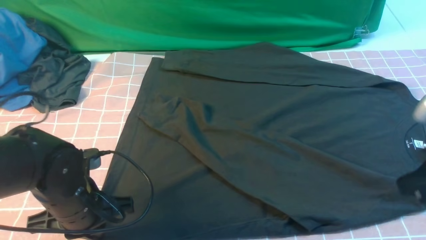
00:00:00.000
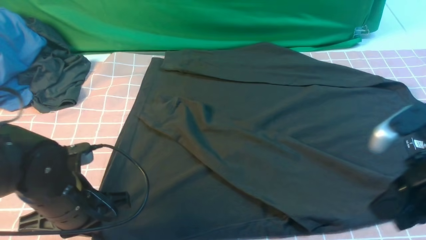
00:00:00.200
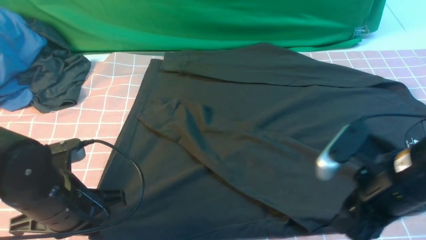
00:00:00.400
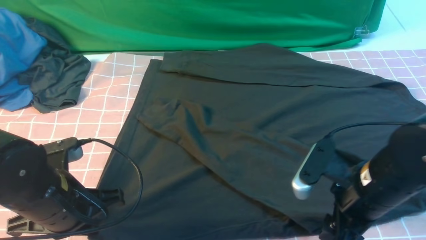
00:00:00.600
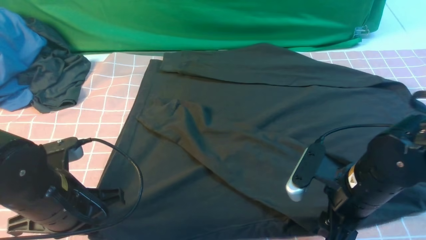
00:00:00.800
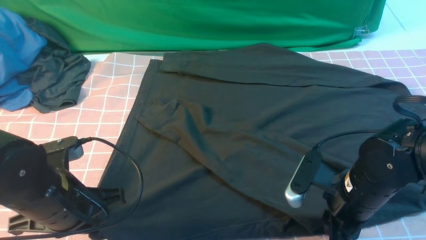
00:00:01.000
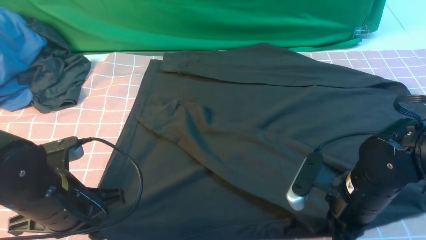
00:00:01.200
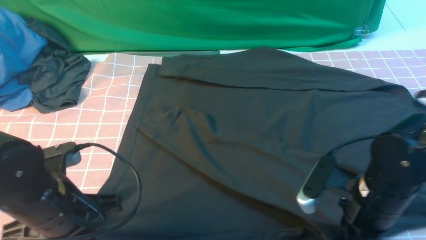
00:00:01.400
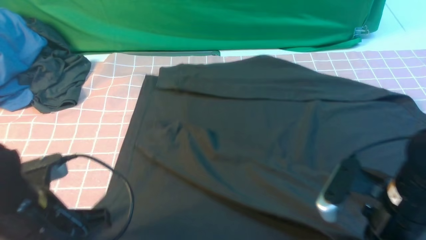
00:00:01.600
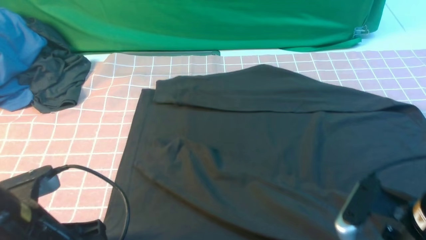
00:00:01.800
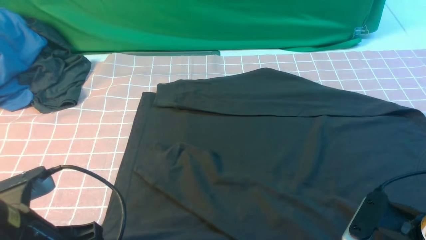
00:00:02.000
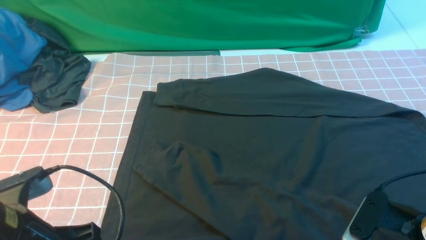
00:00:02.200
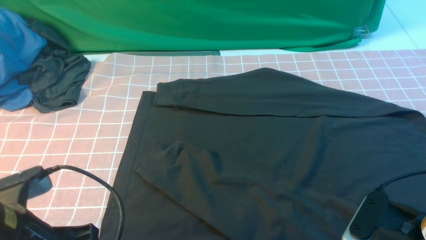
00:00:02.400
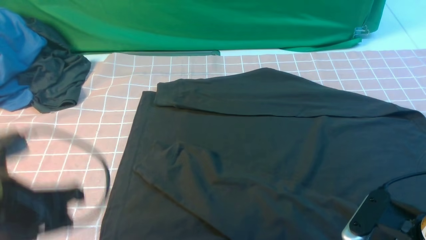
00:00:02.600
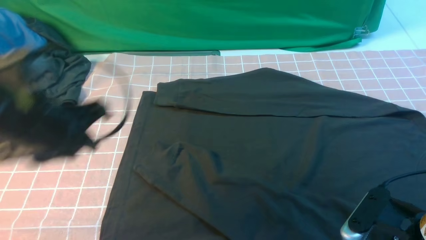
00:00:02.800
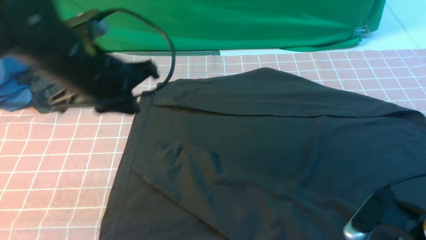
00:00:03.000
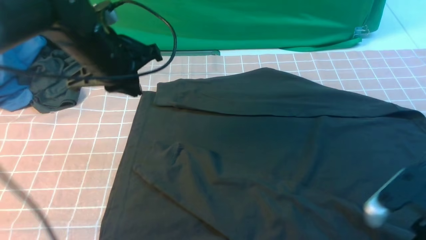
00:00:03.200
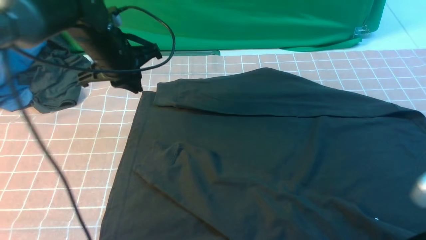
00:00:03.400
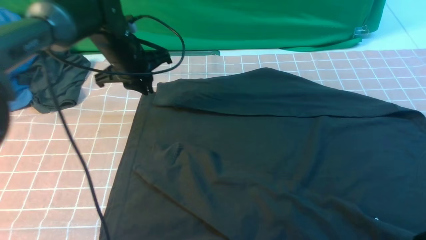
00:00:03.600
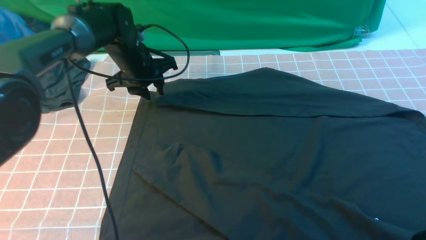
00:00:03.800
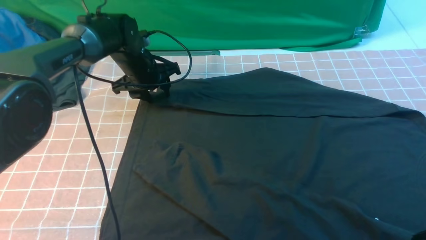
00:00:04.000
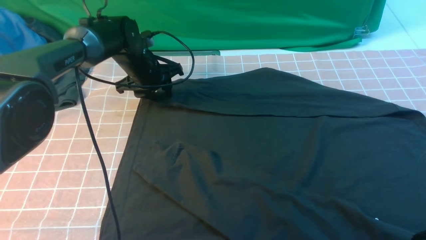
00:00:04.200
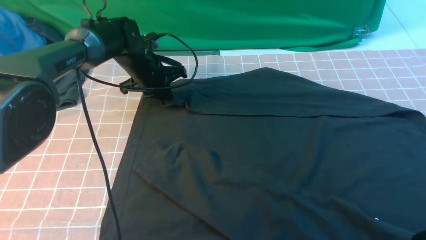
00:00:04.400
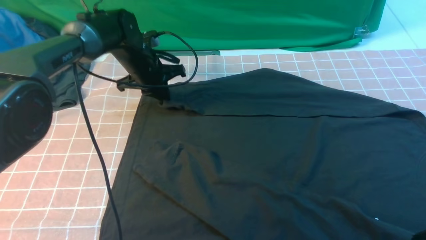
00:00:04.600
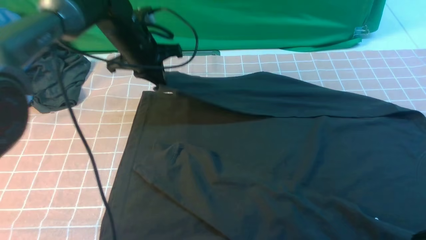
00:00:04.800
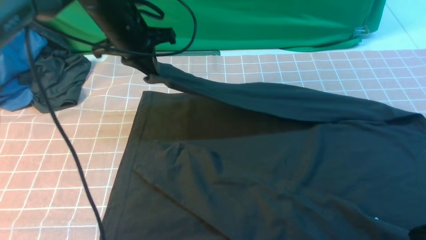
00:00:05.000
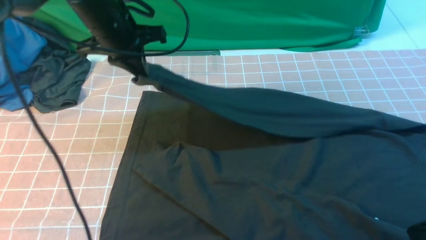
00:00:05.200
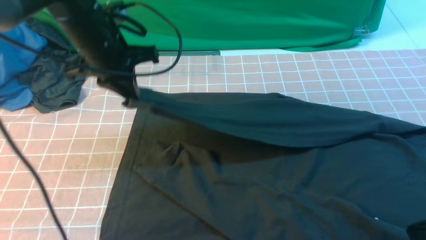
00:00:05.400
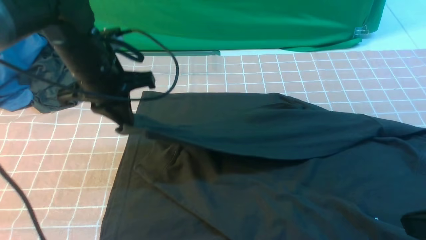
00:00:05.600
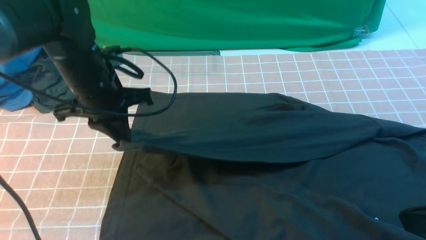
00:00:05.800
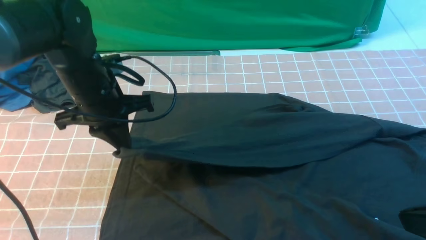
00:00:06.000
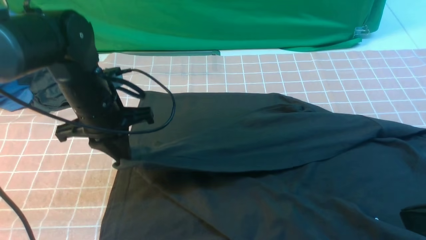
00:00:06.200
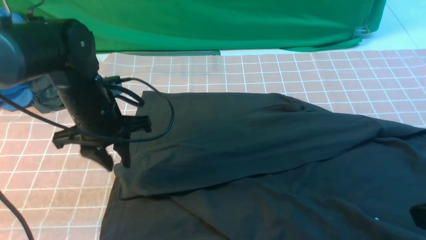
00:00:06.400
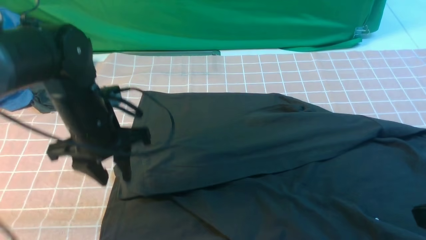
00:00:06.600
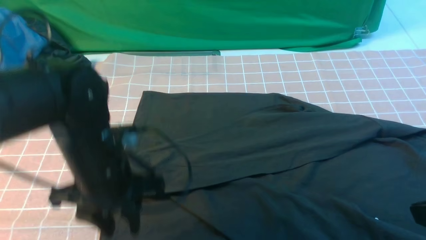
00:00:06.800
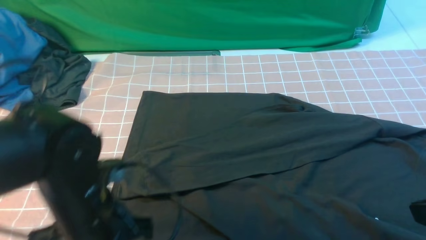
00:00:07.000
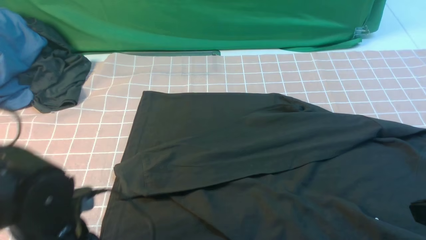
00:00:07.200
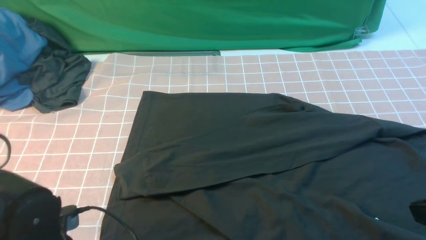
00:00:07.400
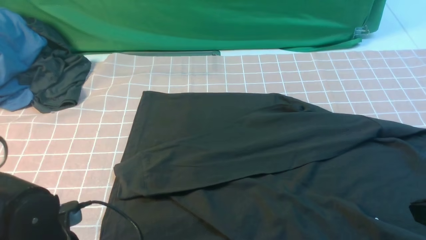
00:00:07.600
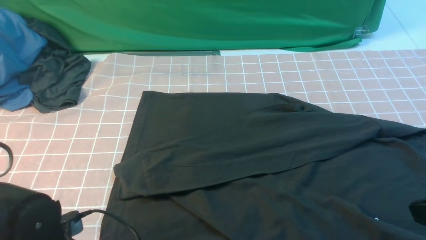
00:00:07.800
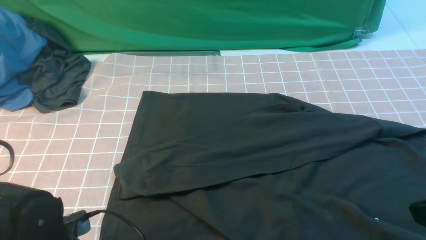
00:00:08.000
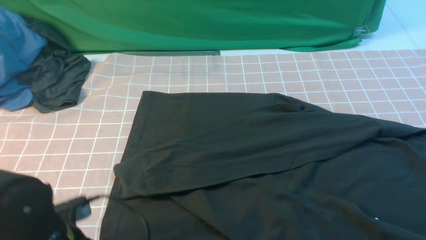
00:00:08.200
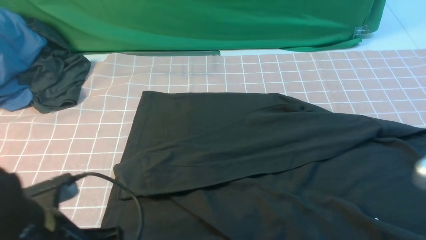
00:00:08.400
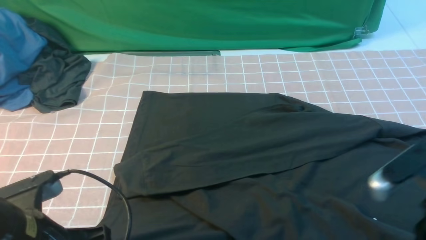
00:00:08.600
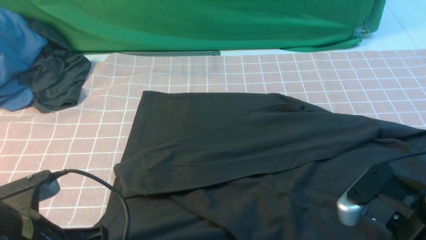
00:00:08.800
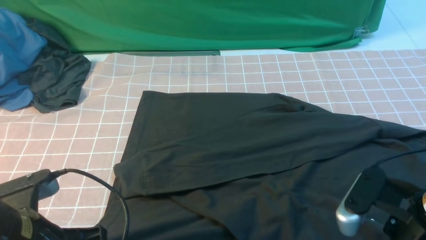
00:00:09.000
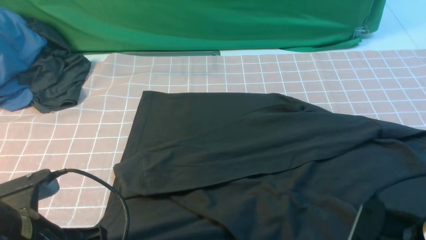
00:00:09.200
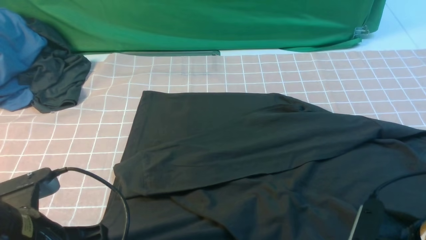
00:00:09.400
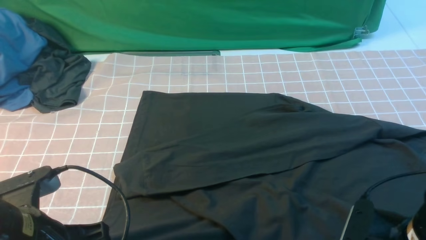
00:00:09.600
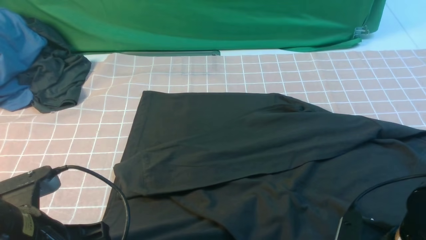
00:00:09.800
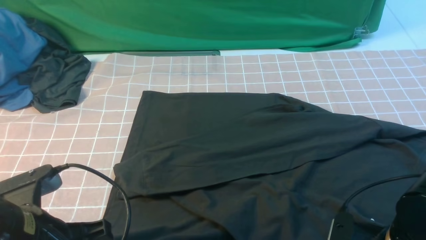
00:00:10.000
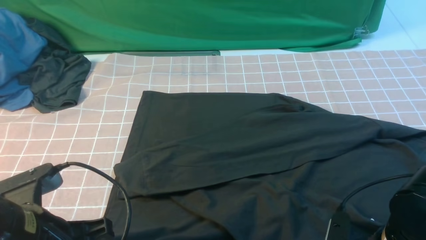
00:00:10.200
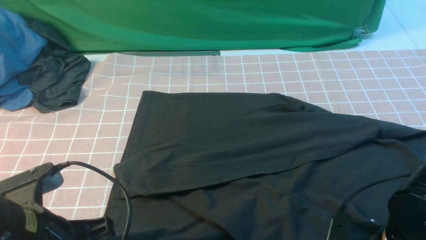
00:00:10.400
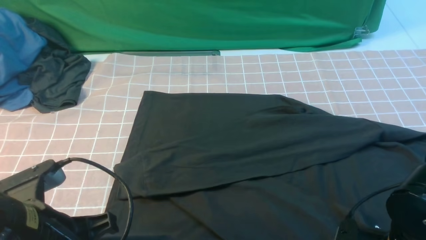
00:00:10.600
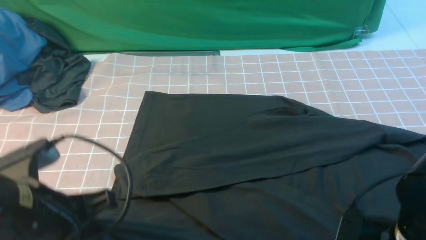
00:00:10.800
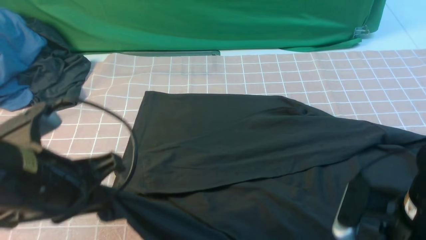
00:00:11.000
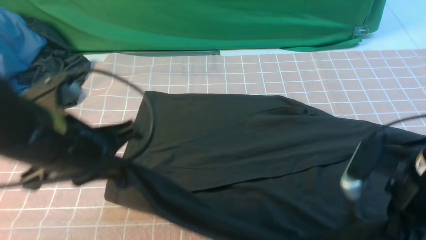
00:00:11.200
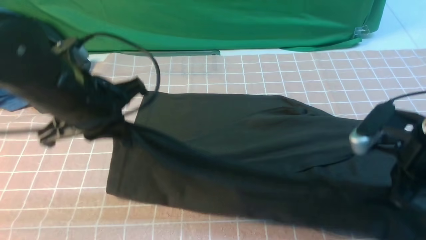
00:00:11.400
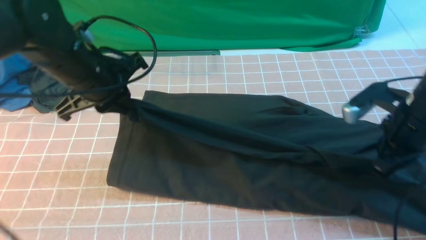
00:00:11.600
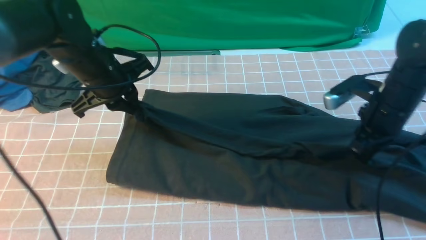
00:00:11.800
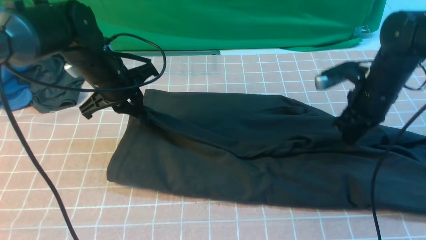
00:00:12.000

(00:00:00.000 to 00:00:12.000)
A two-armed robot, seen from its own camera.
Step, 00:00:00.000 - 00:00:04.400: use the left arm to clamp the cuff farthest from it.
Step, 00:00:04.600 - 00:00:06.200: use the left arm to drag and drop the cuff onto the cuff closest to the left arm.
Step, 00:00:06.600 - 00:00:10.600: use both arms simultaneously to clamp the lower edge of the clothing fabric.
00:00:00.000 - 00:00:01.600: The right gripper heads downward and to the left, covering roughly 10 cm, and opens, then closes once more. The left gripper moves upward and backward, roughly 10 cm.
00:00:01.600 - 00:00:03.000: The left gripper heads forward and upward, covering some 15 cm, and opens, then closes once more, while the right gripper opens its fingers.
00:00:03.000 - 00:00:04.400: The right gripper travels upward by about 10 cm, and closes, while the left gripper goes about 25 cm forward and downward, and opens, then closes again.
00:00:04.400 - 00:00:06.000: The left gripper goes about 15 cm backward and upward.
00:00:06.000 - 00:00:07.600: The left gripper goes roughly 20 cm backward, and opens its fingers.
00:00:07.600 - 00:00:09.000: The right gripper shifts about 5 cm downward, and opens its fingers. The left gripper shifts about 5 cm upward, and closes.
00:00:09.000 - 00:00:10.400: The right gripper shifts approximately 10 cm downward, and opens, then closes once more.
00:00:10.400 - 00:00:12.000: The two grippers go approximately 25 cm forward. The right gripper closes, then reopens.

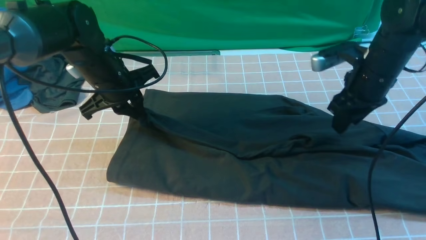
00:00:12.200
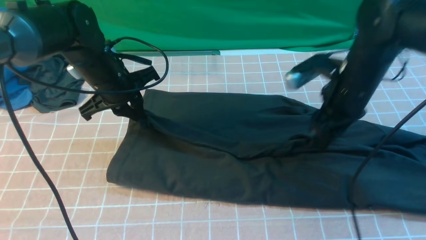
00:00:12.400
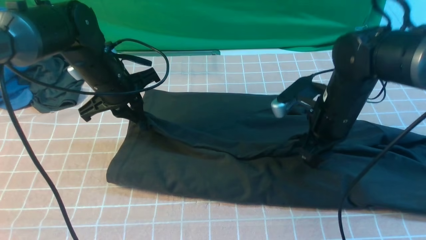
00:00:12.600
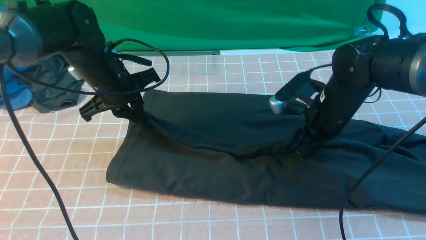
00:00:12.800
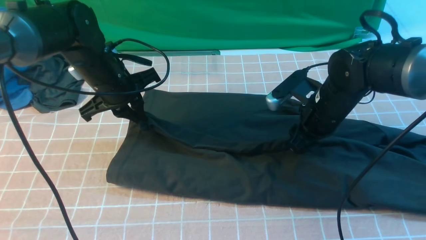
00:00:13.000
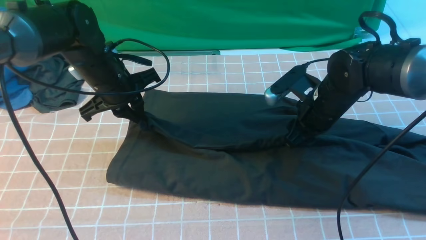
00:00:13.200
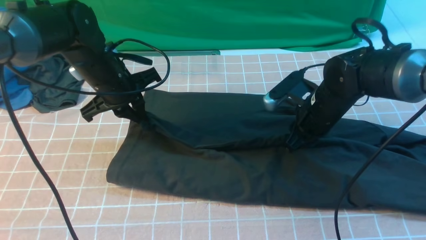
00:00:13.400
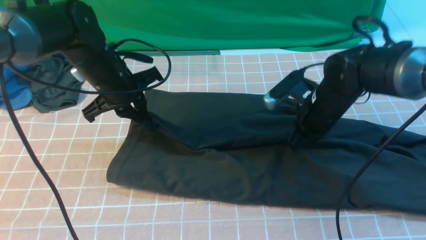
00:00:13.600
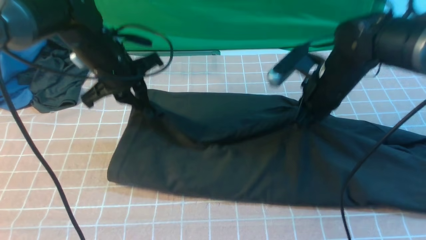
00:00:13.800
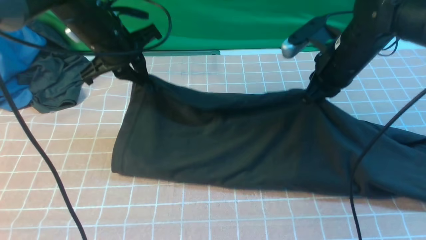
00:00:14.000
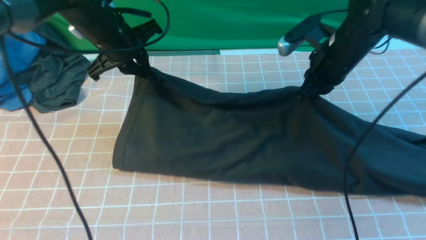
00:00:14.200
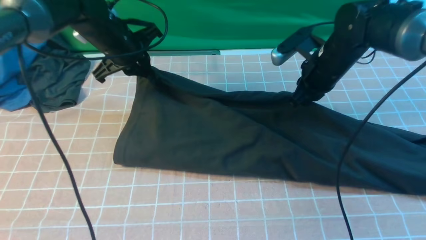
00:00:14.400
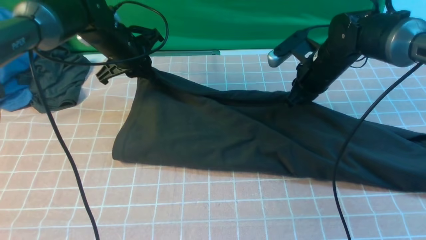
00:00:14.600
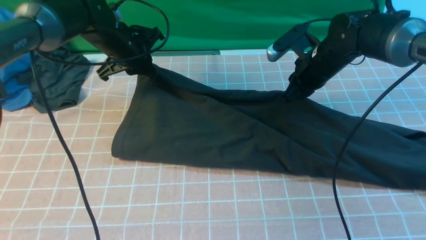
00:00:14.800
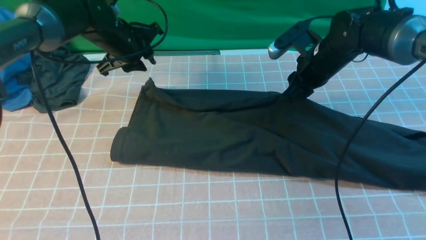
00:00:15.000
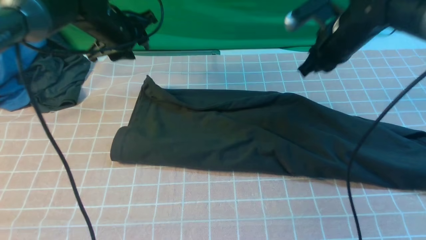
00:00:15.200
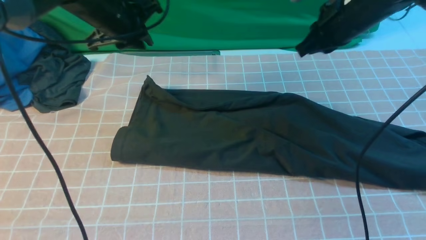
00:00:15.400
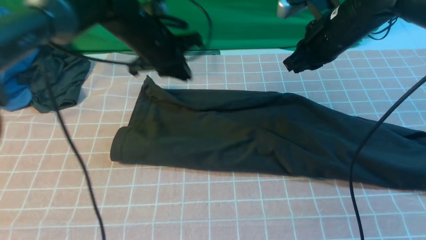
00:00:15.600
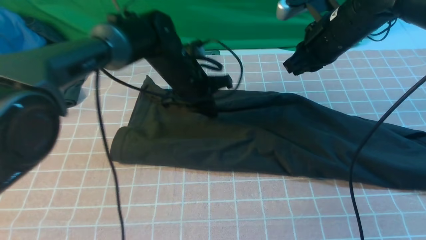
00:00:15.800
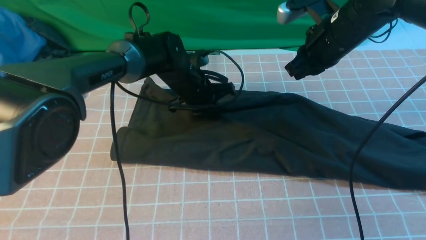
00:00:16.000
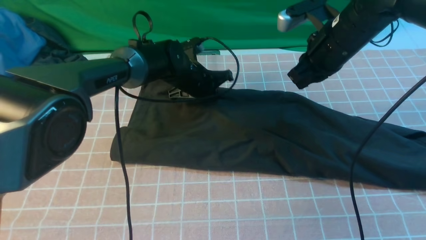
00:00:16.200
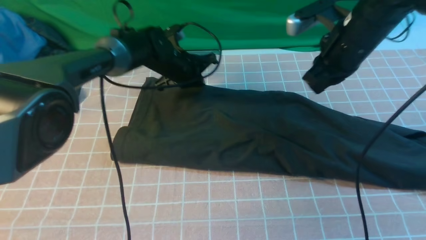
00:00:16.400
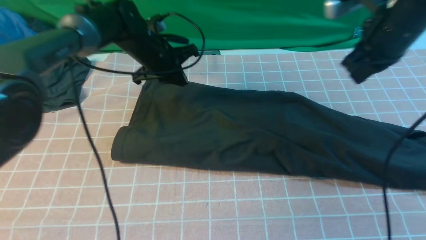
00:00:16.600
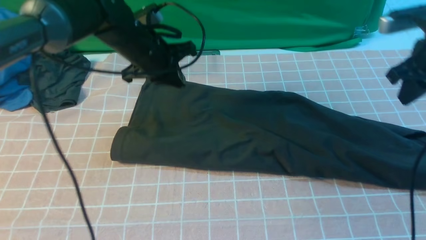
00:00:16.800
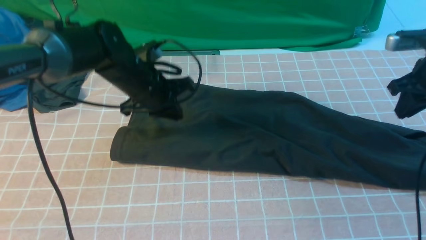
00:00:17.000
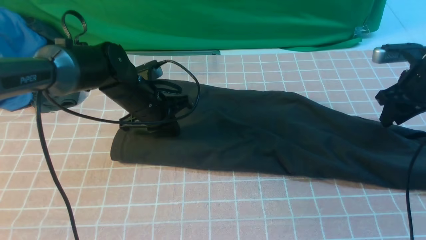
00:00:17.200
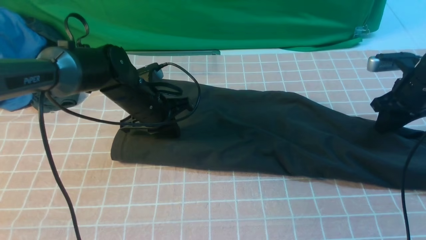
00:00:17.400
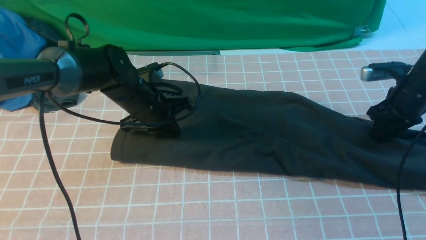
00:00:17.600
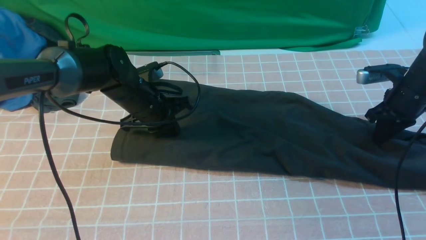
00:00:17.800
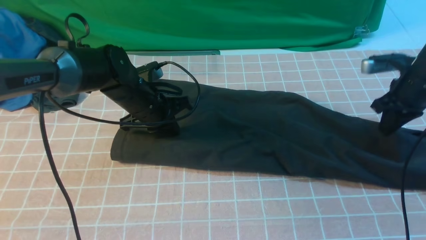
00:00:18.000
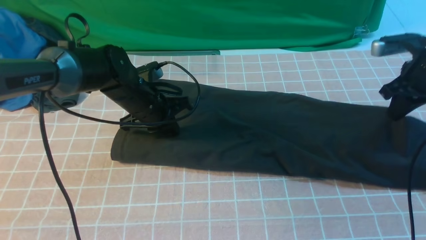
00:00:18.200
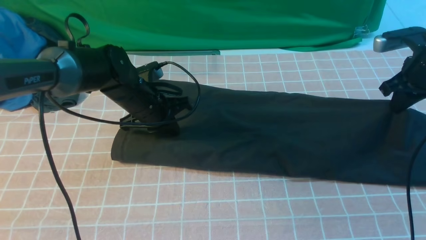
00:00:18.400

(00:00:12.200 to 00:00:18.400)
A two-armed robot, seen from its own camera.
Step, 00:00:12.200 - 00:00:15.000: use both arms to drag the lower edge of the fabric forward and fold it over the upper edge.
00:00:12.200 - 00:00:13.800: The right gripper closes up.
00:00:13.800 - 00:00:15.400: The right gripper is displaced upward by approximately 5 cm, and opens and closes again. The left gripper changes place by approximately 5 cm.
00:00:15.400 - 00:00:16.800: The left gripper shifts roughly 5 cm downward, while the right gripper moves to the right, about 10 cm.
00:00:16.800 - 00:00:18.400: Both grippers travel together downward, roughly 5 cm. The right gripper opens, then closes once more.
